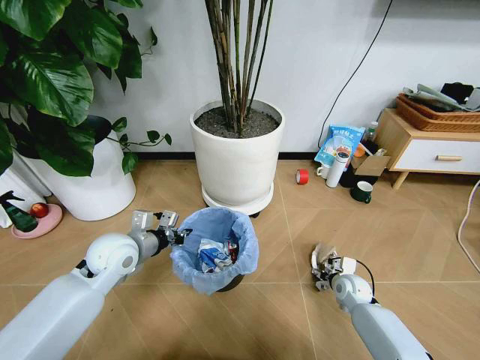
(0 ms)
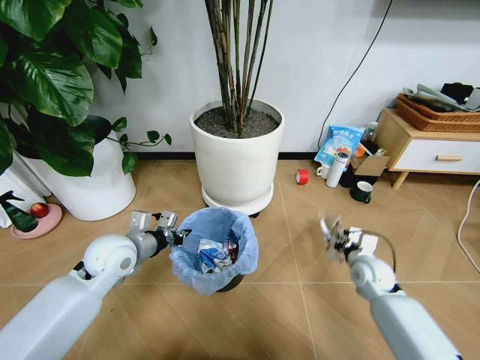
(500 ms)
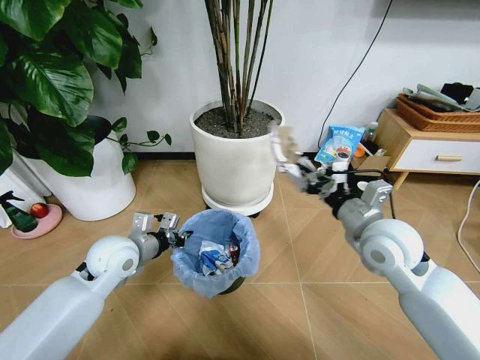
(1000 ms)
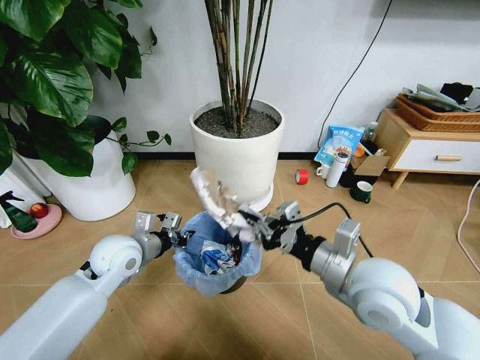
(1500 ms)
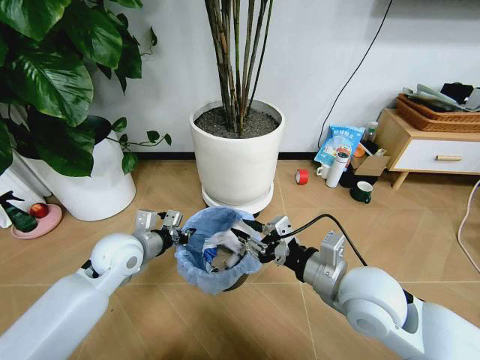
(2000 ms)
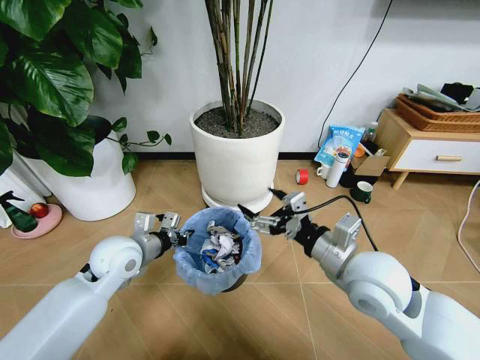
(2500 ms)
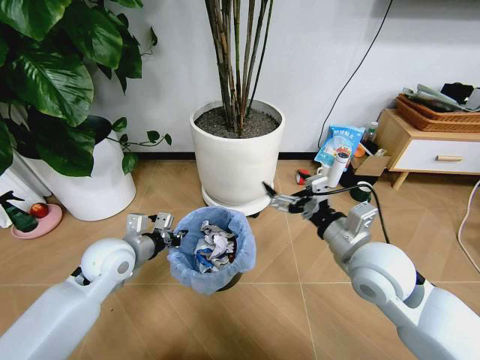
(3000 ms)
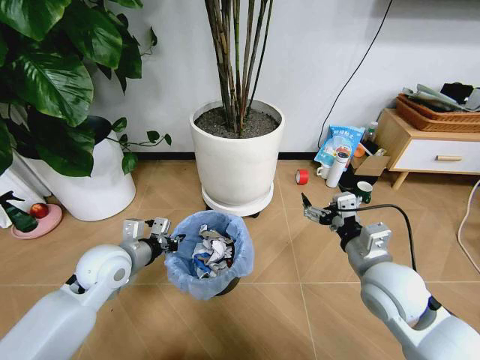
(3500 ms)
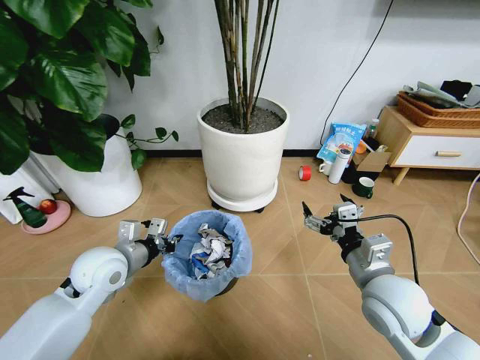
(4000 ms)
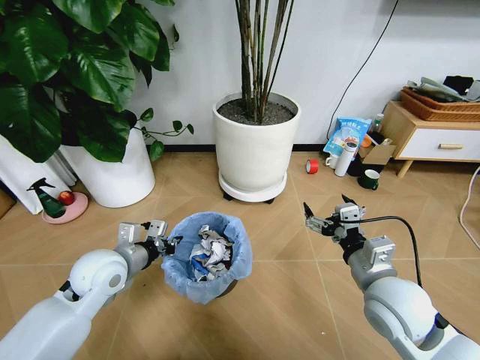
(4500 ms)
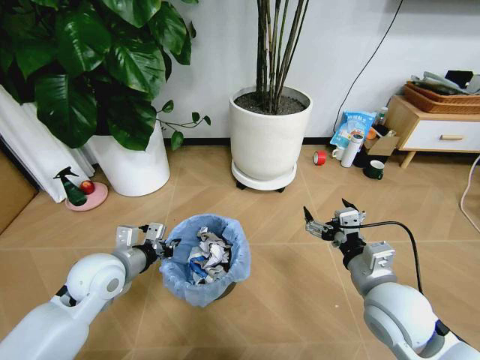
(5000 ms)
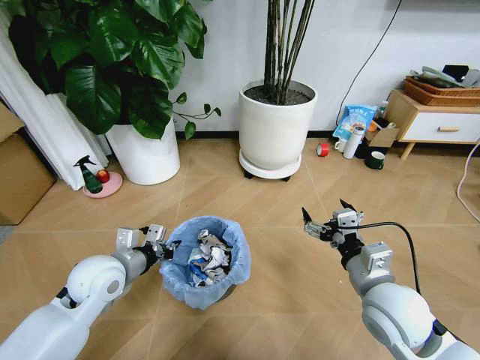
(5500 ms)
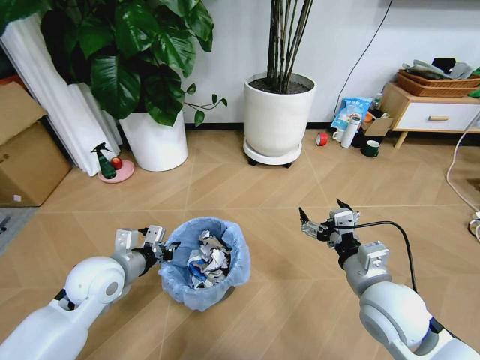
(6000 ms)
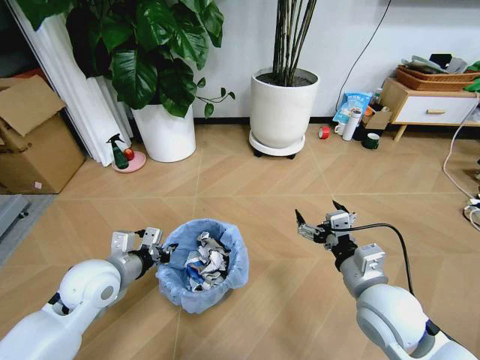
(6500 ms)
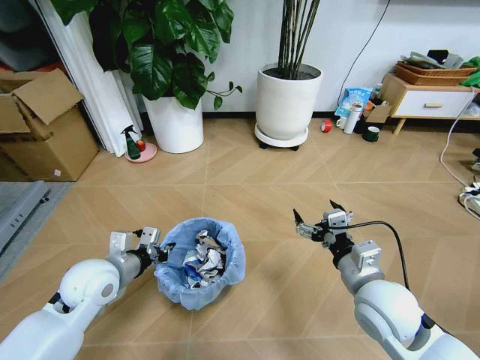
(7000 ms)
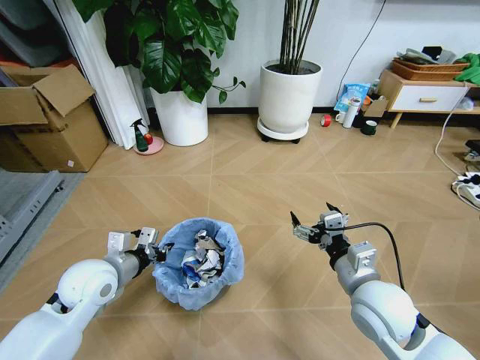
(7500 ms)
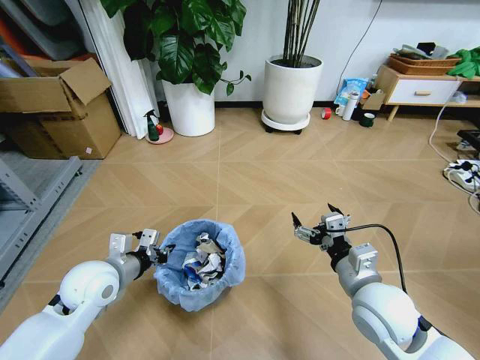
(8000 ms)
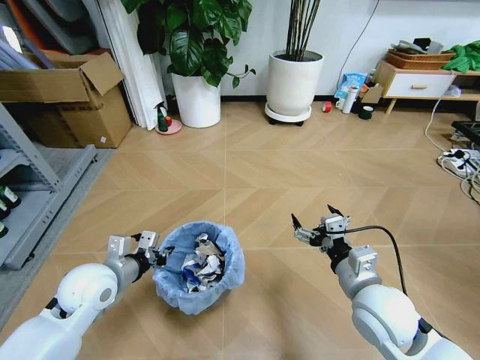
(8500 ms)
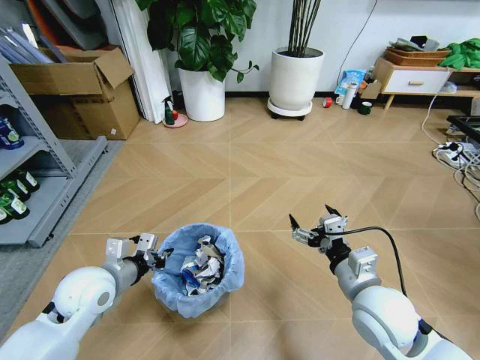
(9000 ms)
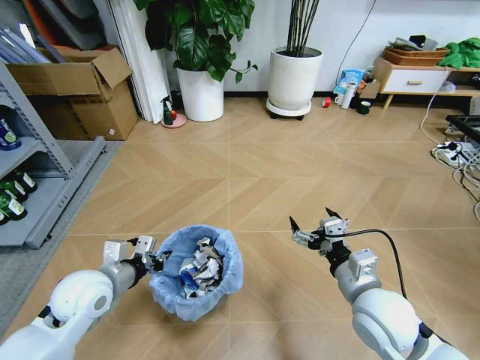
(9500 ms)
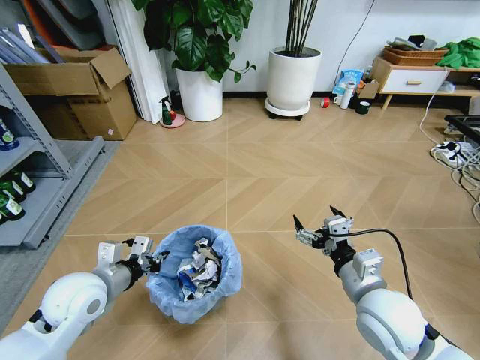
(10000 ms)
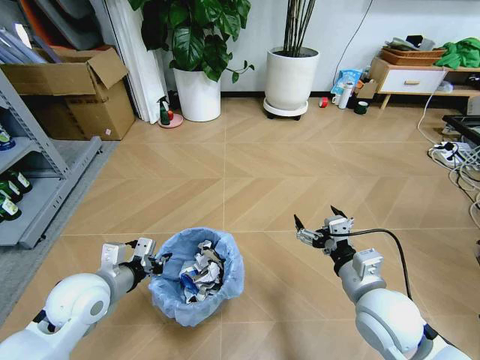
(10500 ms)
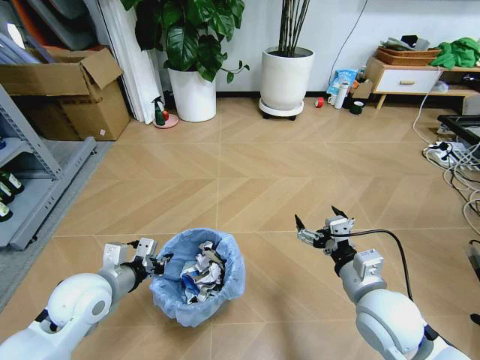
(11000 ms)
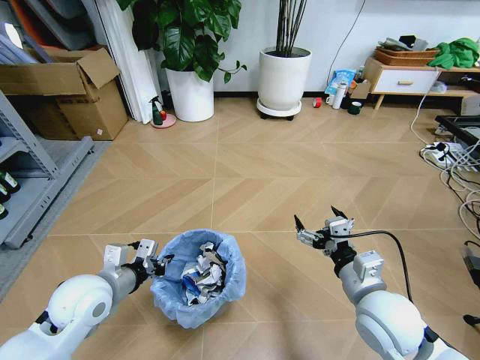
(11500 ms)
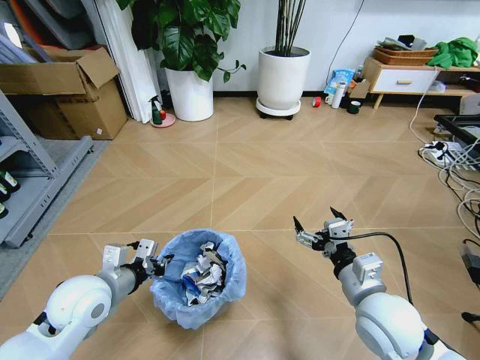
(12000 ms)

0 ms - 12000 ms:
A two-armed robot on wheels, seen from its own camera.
Task of the whole recording: Pick up the trash bin and place the garbage on the floor into it.
0 ms - 2000 ms: The right gripper goes some 35 cm upward, to the left and backward.
2000 ms - 4000 ms: The right gripper shifts roughly 5 cm to the right, and opens.

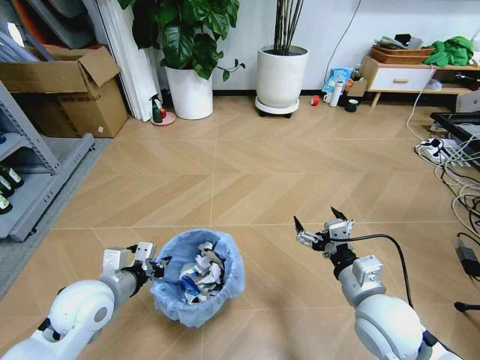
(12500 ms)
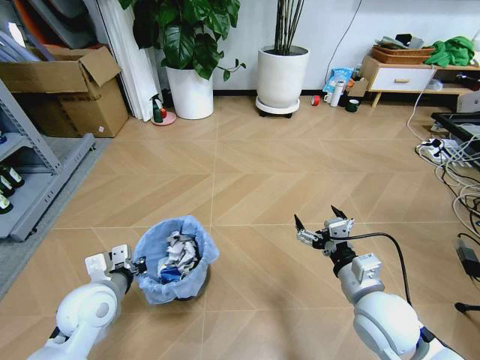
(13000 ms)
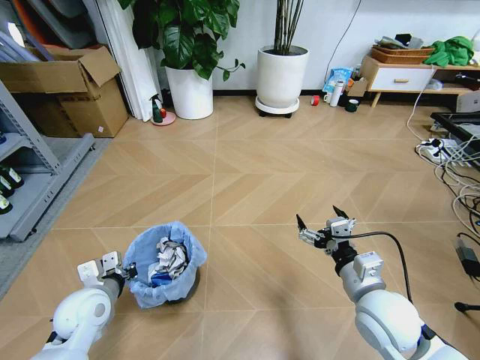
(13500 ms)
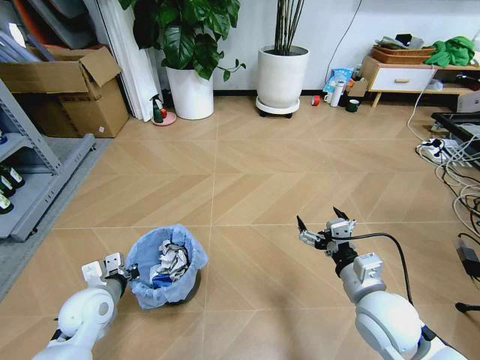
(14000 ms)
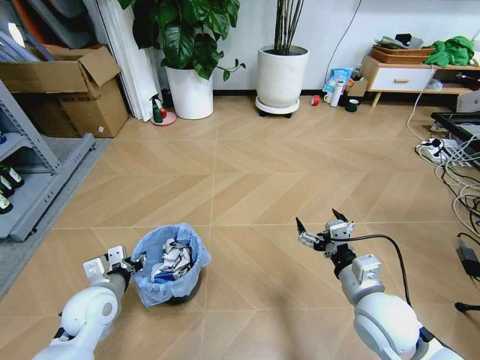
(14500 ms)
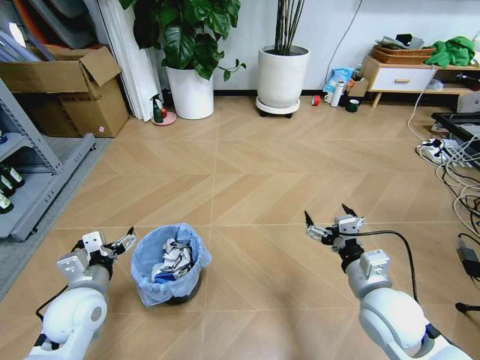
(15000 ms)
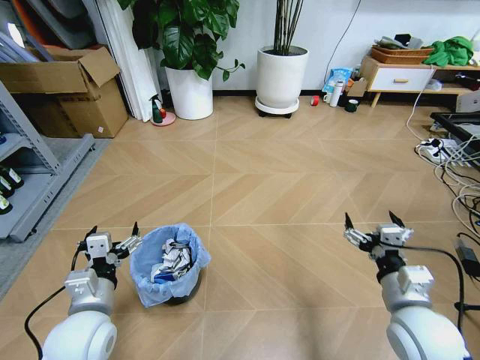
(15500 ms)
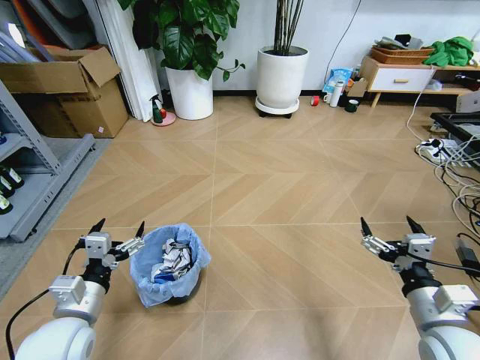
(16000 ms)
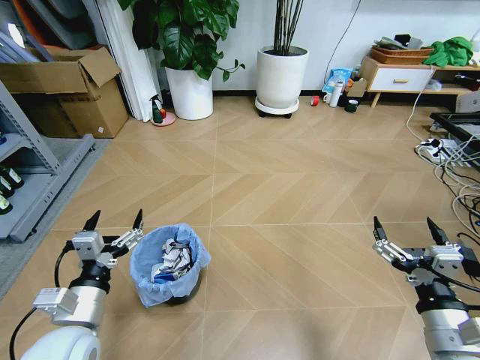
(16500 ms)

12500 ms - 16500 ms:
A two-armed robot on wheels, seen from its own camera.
Task of the whole recording: Pick up the trash bin and place the garbage on the floor into it.
12500 ms - 14500 ms: The left gripper travels downward by approximately 5 cm, and opens.
14500 ms - 16500 ms: The right gripper moves backward and to the right, some 10 cm; the left gripper heads backward and upward, covering some 10 cm, and opens.
